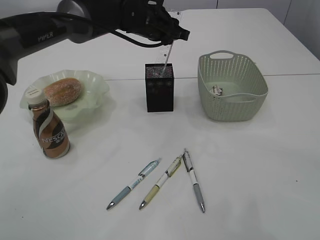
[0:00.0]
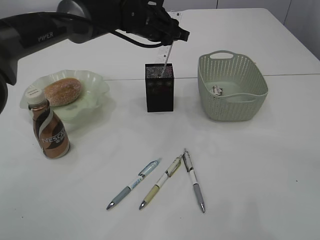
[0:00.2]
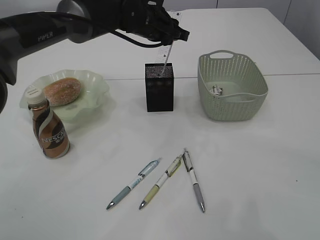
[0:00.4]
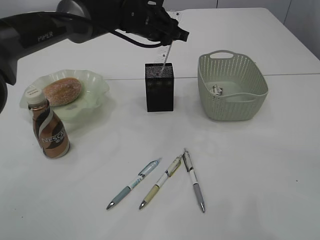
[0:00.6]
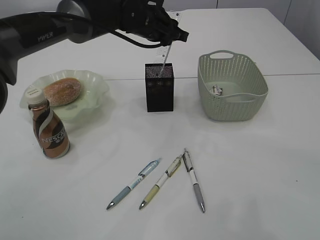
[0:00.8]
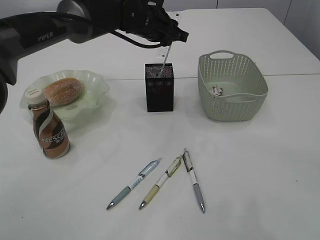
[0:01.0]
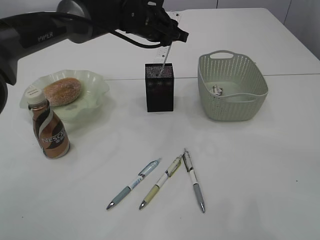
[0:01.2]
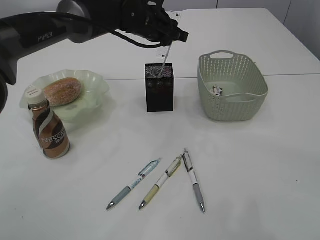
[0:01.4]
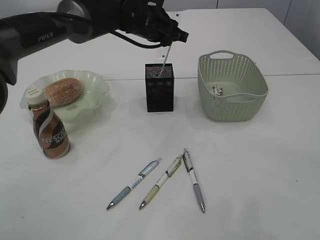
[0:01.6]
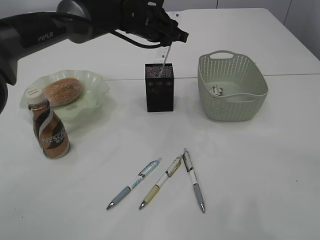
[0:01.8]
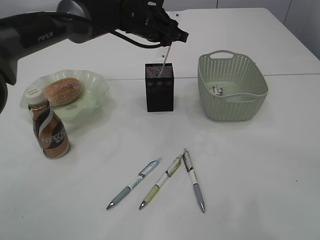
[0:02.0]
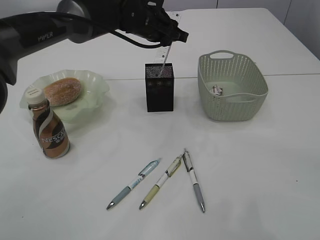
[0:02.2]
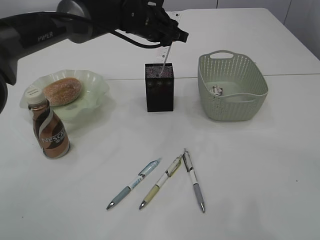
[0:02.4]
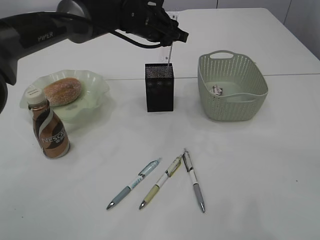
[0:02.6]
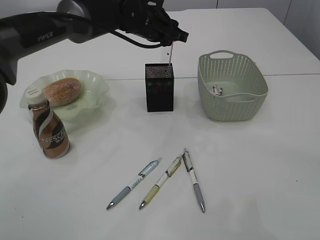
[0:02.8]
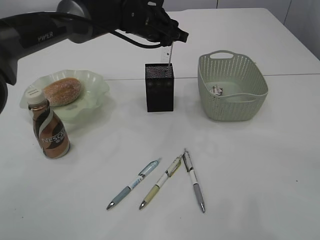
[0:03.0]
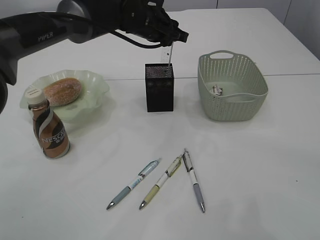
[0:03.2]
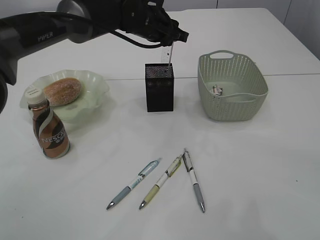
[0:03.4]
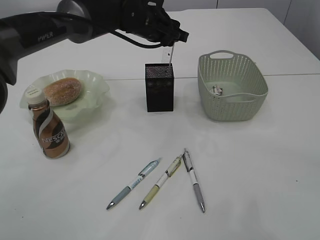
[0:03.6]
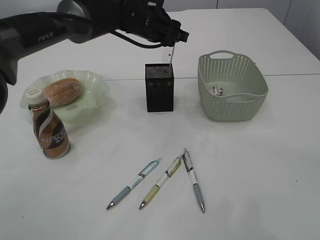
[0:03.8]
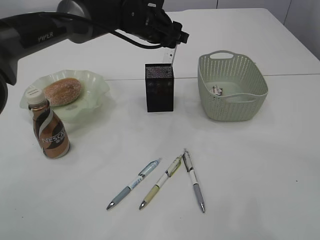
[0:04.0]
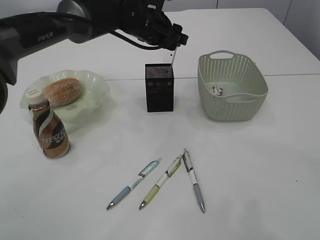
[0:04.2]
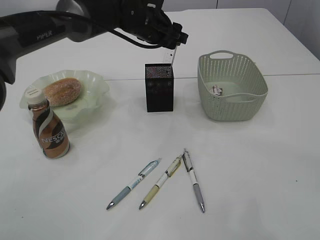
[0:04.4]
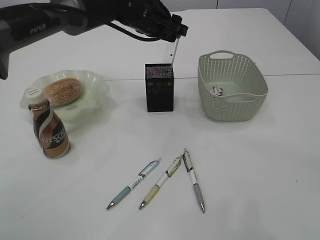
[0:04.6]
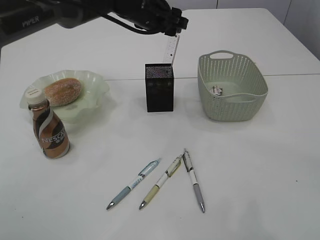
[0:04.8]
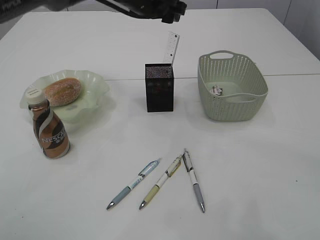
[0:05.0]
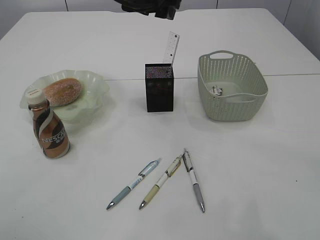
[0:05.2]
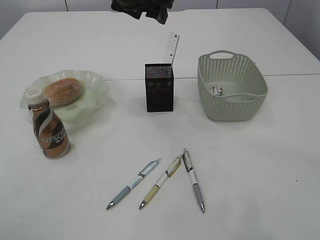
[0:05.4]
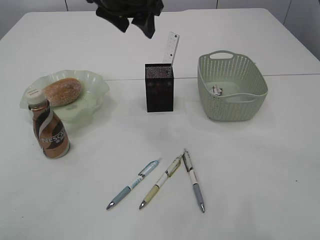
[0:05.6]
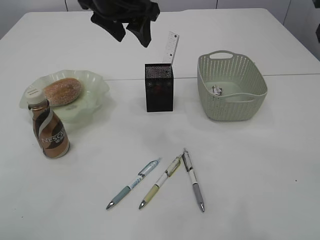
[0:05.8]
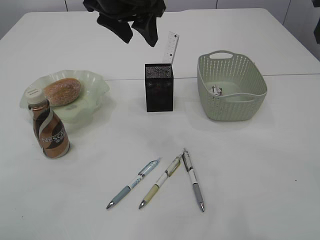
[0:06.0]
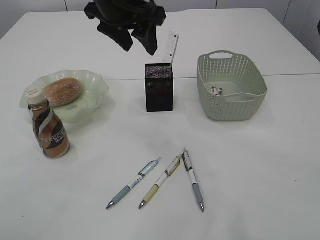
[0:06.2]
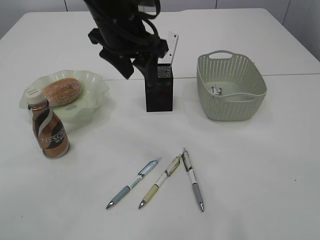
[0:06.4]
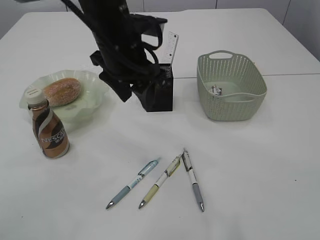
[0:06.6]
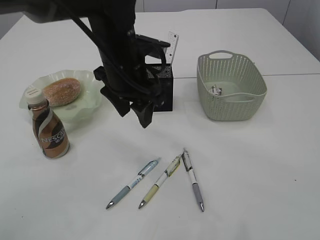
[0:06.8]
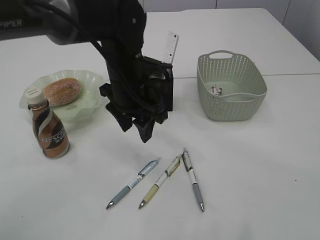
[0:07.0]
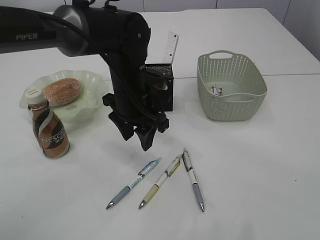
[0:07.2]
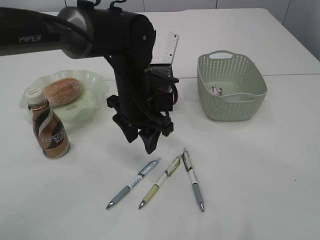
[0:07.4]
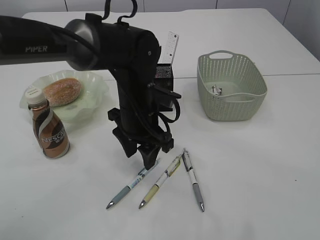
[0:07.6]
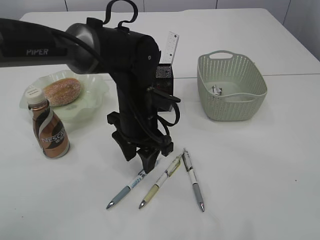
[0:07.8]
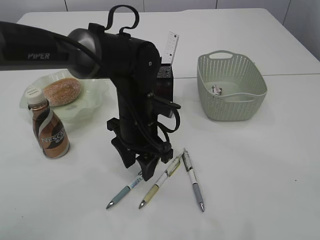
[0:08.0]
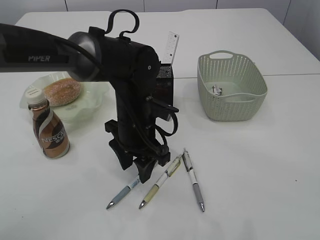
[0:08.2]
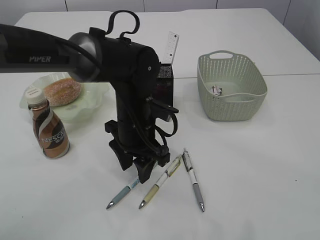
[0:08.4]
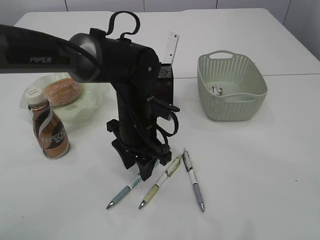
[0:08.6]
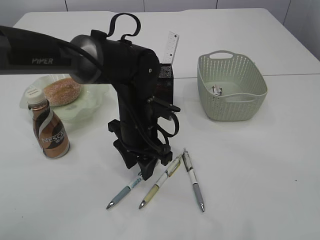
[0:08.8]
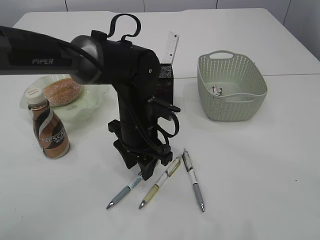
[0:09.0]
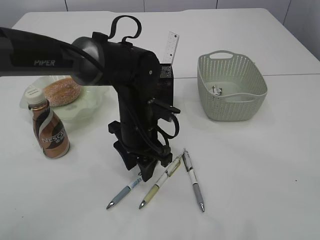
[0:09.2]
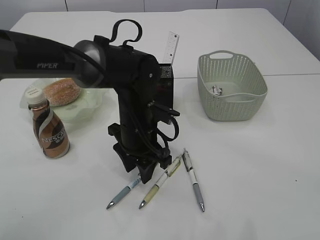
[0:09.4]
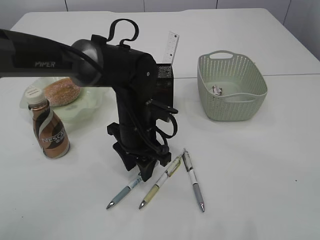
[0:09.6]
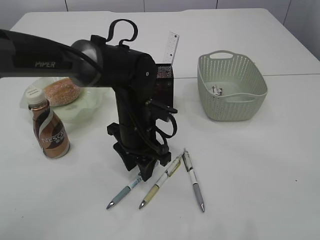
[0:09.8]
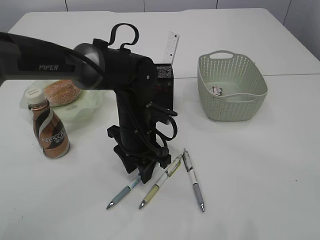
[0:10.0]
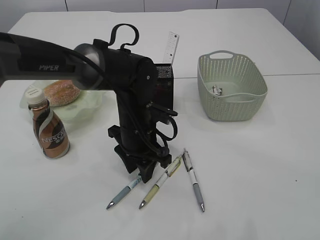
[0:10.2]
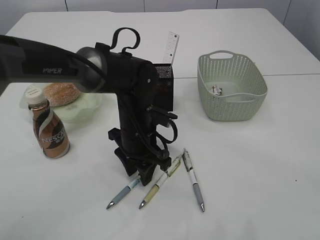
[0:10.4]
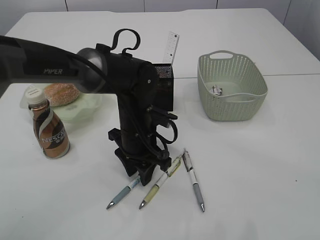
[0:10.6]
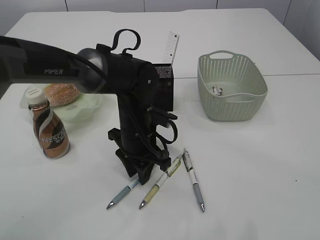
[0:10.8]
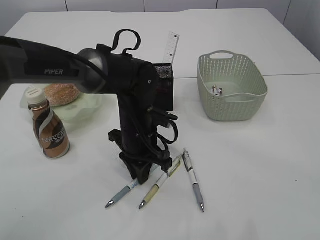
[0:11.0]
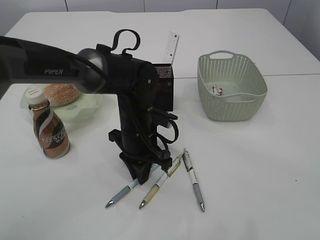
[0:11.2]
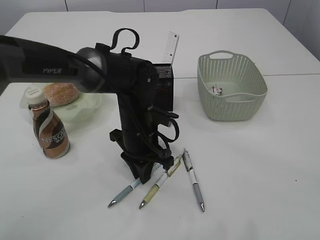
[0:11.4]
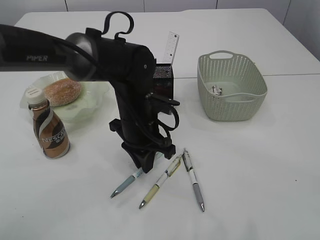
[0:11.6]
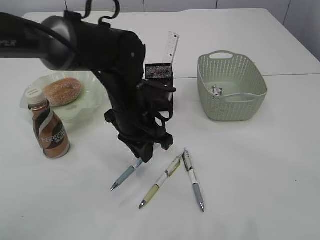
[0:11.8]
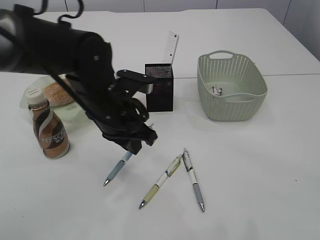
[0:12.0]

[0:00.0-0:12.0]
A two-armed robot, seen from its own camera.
Step, 0:00.0 to 0:04.6: Place the ruler into the pen holder.
Step, 0:04.8 to 0:11.8: Pick up the pen with left arm.
0:00.0 to 0:03.0: Both grippers stay put.
0:03.0 to 0:04.4: The left gripper opens up.
0:04.4 to 0:06.0: The left gripper is displaced upward and backward by about 15 cm.
0:06.0 to 0:07.6: The left gripper heads downward, covering roughly 20 cm.
0:07.6 to 0:10.4: The grippers stay close to where they were, moving slightly.
0:10.4 to 0:12.0: The left gripper shifts approximately 5 cm upward, and closes its fingers.

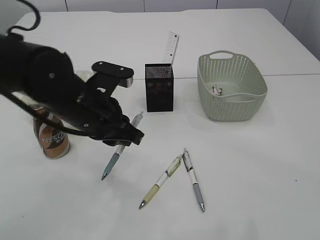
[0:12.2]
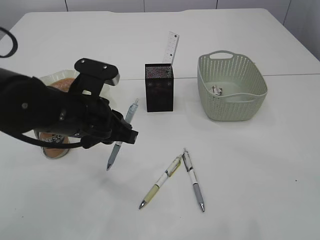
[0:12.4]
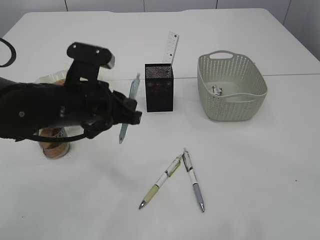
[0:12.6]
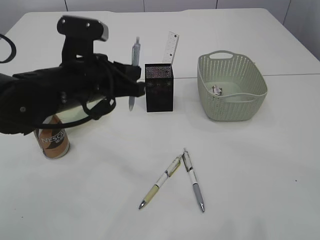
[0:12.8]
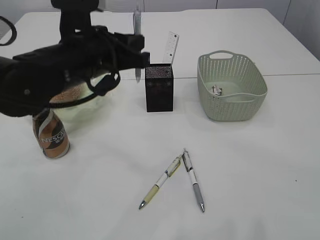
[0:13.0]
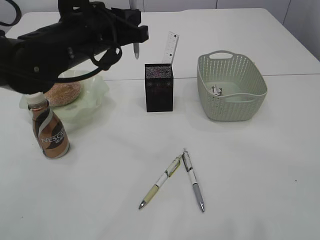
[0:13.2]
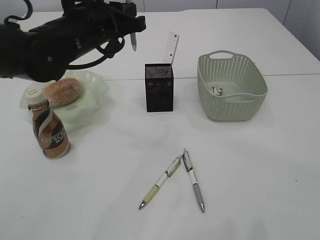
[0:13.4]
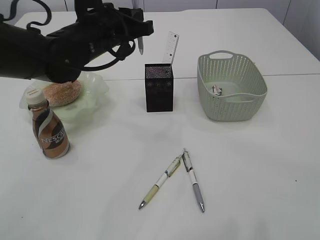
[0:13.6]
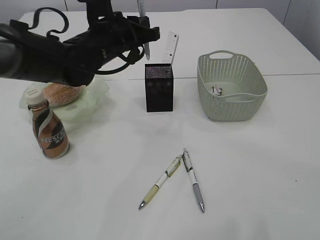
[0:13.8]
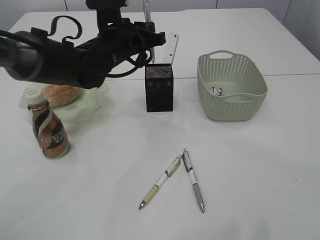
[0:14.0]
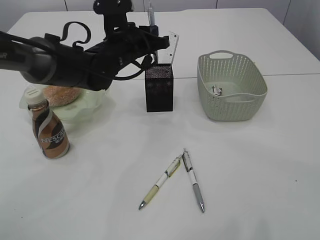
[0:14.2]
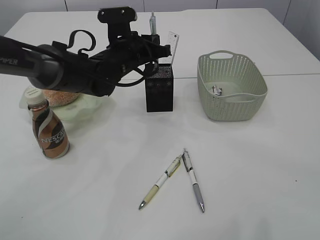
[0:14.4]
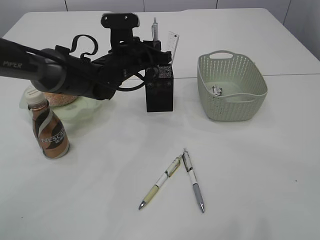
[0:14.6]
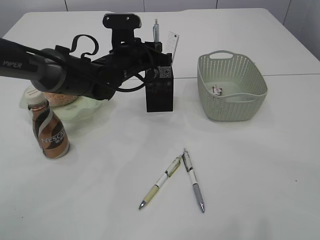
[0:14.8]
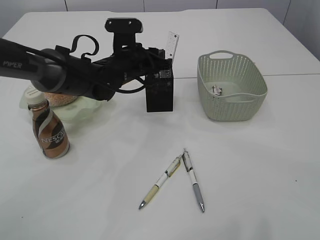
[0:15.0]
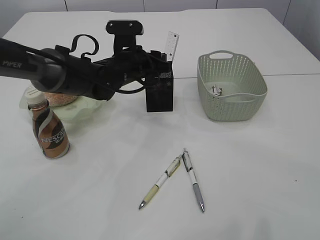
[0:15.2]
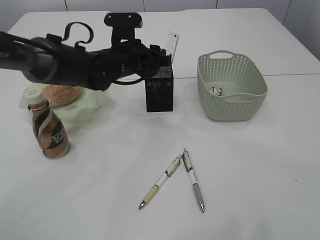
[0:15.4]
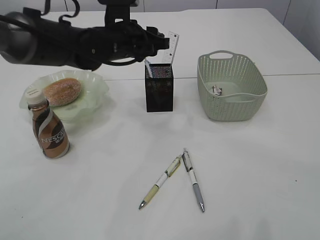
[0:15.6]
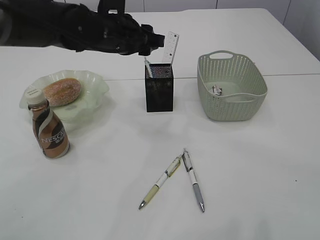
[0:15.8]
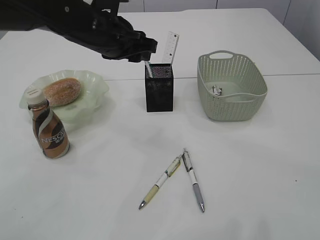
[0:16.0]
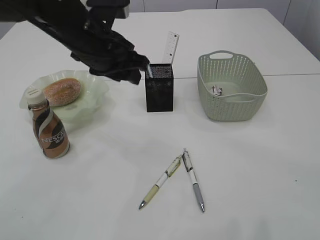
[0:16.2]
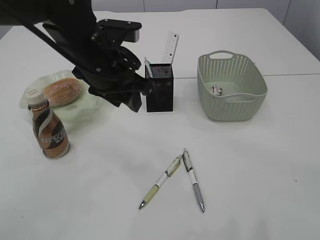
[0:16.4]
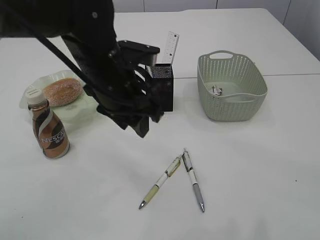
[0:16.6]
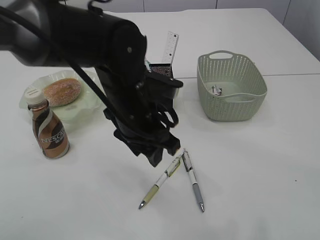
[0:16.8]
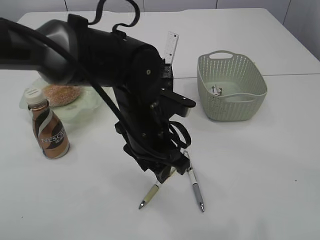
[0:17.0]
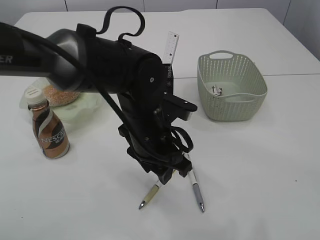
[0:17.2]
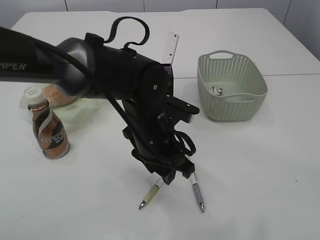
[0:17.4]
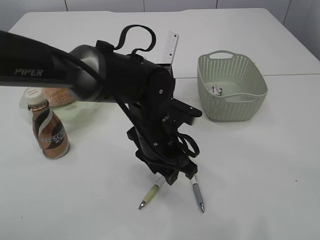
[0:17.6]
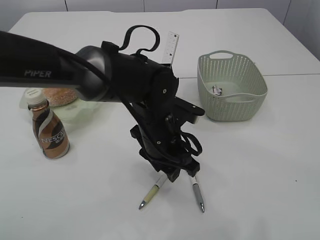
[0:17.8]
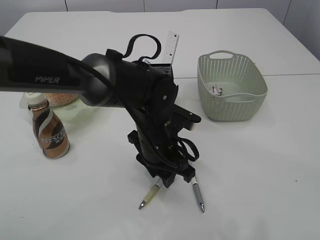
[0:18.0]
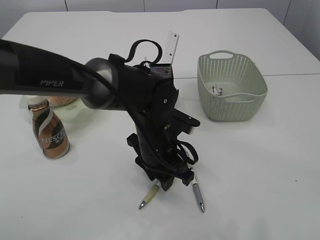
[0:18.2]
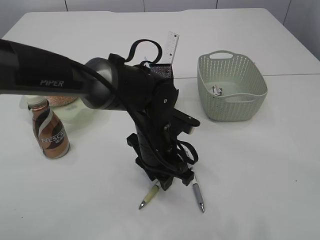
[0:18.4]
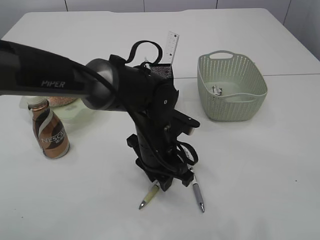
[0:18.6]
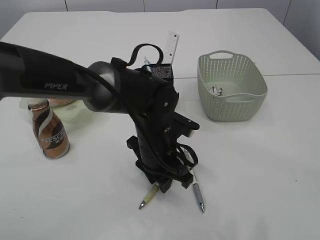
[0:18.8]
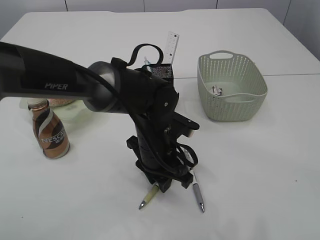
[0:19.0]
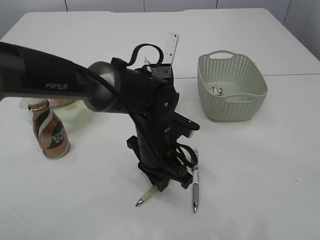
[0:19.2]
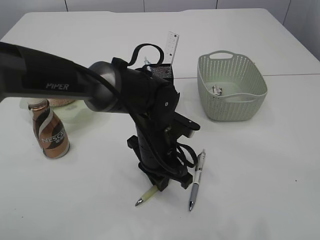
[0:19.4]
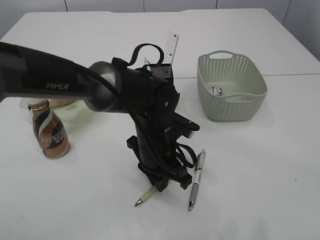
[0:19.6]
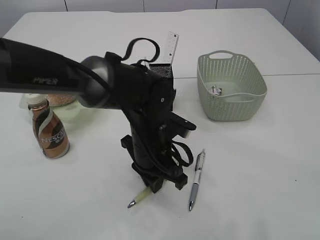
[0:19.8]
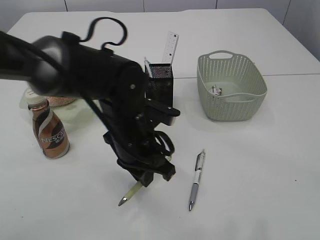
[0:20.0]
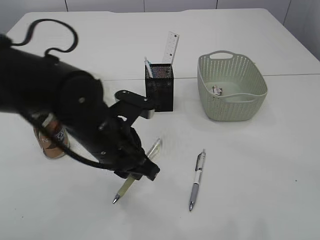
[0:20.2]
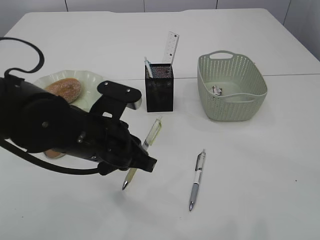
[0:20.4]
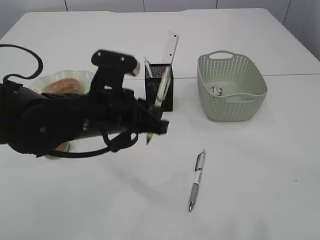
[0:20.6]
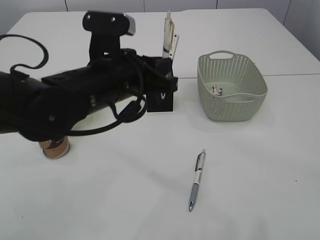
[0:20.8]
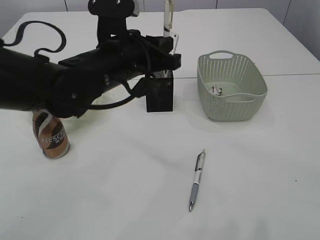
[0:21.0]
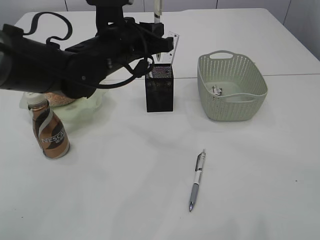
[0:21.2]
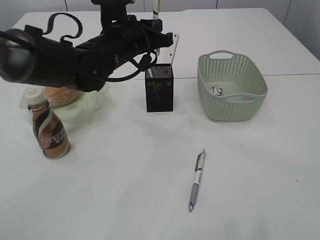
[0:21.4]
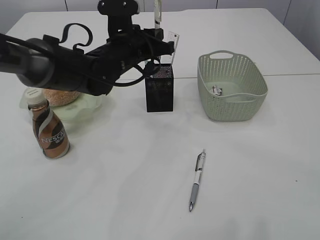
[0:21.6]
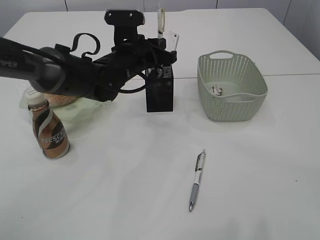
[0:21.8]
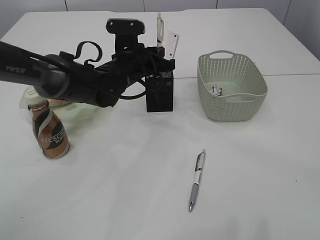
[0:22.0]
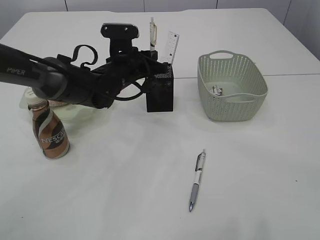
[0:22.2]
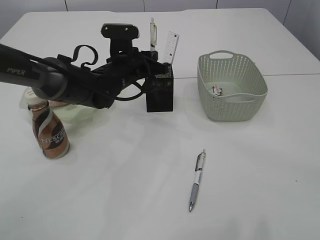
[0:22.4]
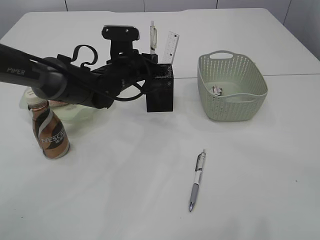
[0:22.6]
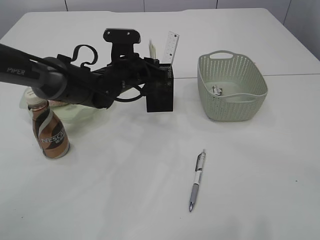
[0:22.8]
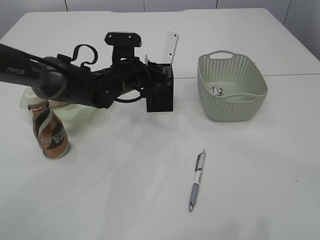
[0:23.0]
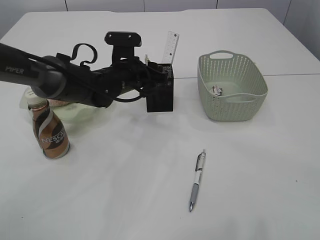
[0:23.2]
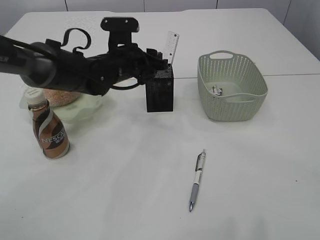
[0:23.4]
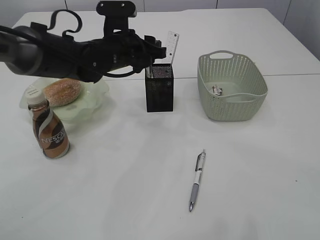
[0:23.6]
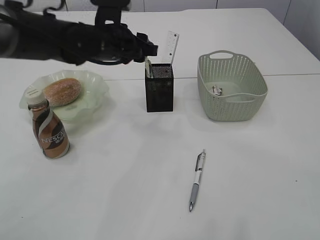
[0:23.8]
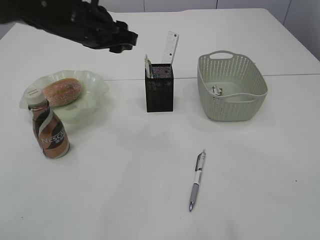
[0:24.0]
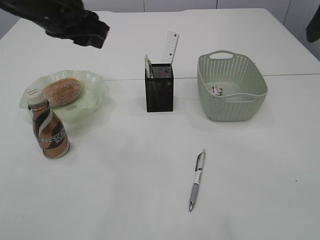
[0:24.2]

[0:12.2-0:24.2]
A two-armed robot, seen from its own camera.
Step, 0:12.2 to 0:16.0: Place the pen into the pen holder.
Step, 0:16.2 to 0:20.0: Pick up the pen with left arm.
Step, 0:20.2 to 0:23.6: Place the pen into the pen holder.
0:12.2 to 0:13.8: The left gripper shifts approximately 10 cm forward.
0:13.8 to 0:15.2: The left gripper is displaced downward by roughly 5 cm, and opens up.
0:15.2 to 0:16.6: The left gripper is displaced backward and upward by some 15 cm.
0:16.6 to 0:18.2: The left gripper travels downward and to the right by about 15 cm.
0:18.2 to 0:19.8: The left gripper closes its fingers.
0:19.8 to 0:21.2: The left gripper is displaced upward, forward and to the left by about 15 cm.
0:21.2 to 0:22.6: The left gripper moves downward and forward, roughly 10 cm.
0:22.6 to 0:24.2: The left gripper is displaced upward, backward and to the left by roughly 20 cm, and opens up.
